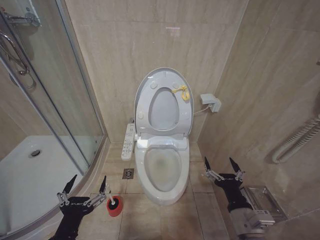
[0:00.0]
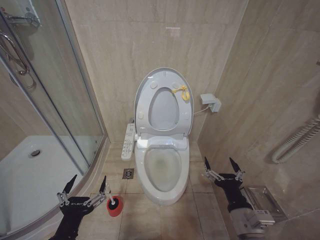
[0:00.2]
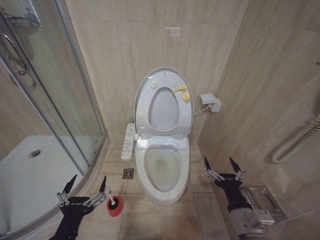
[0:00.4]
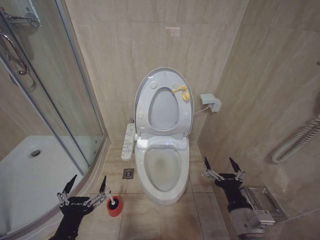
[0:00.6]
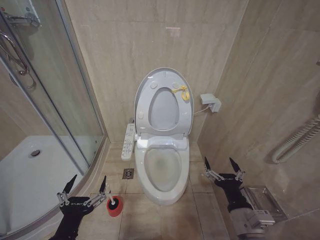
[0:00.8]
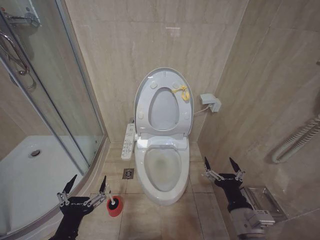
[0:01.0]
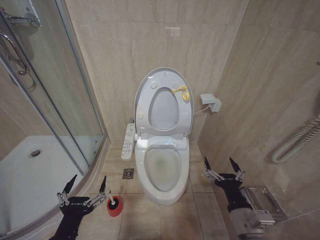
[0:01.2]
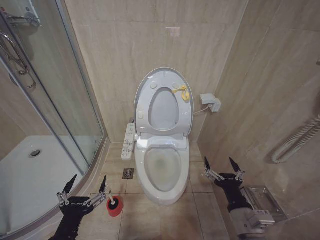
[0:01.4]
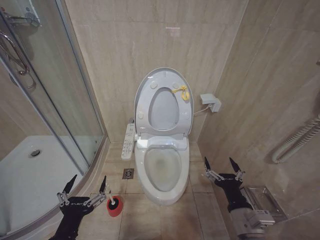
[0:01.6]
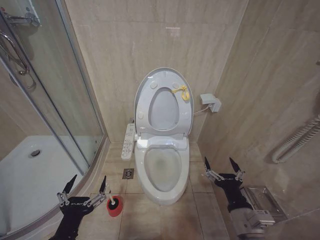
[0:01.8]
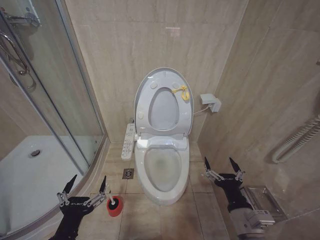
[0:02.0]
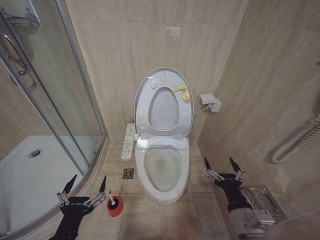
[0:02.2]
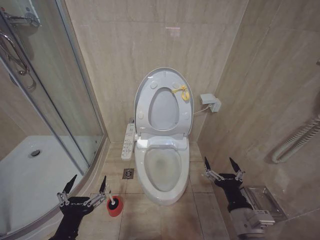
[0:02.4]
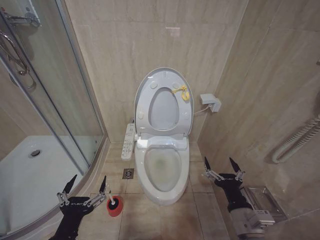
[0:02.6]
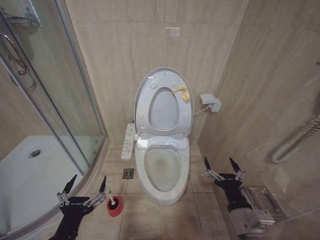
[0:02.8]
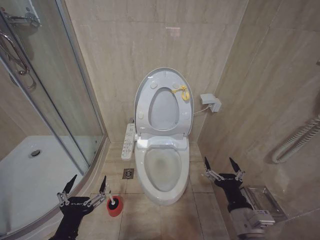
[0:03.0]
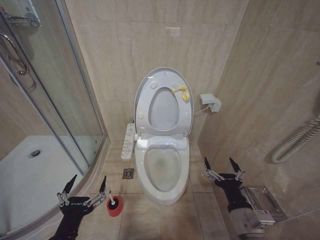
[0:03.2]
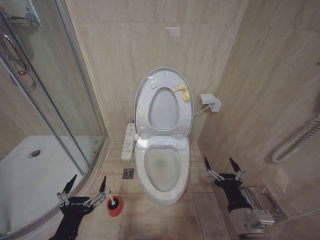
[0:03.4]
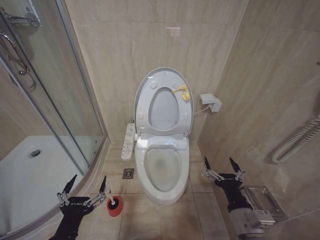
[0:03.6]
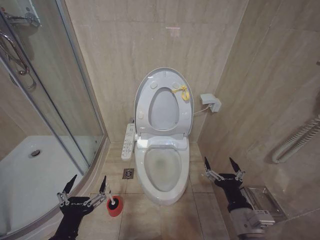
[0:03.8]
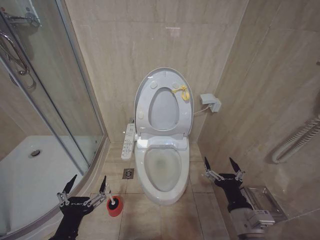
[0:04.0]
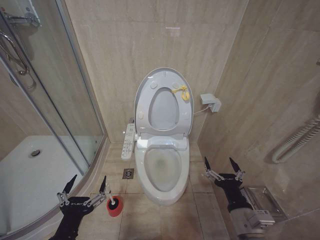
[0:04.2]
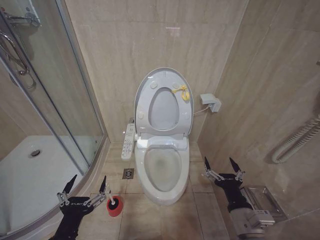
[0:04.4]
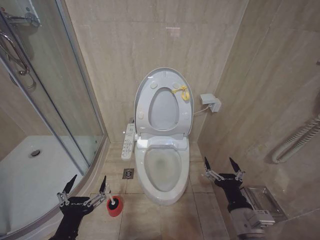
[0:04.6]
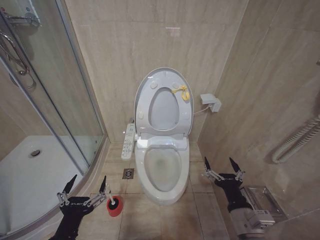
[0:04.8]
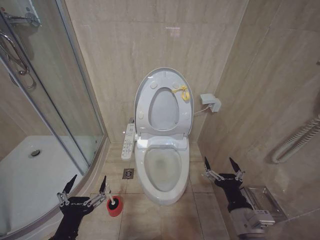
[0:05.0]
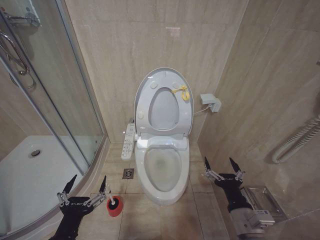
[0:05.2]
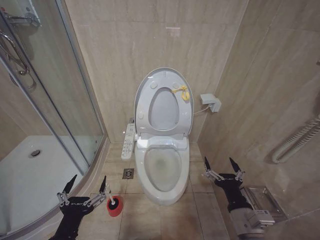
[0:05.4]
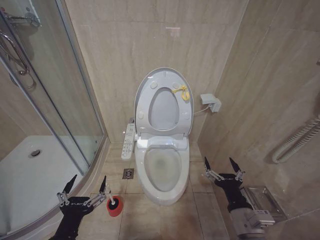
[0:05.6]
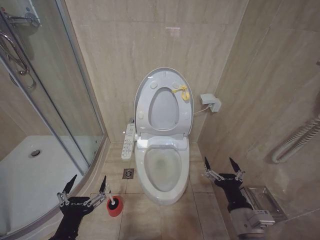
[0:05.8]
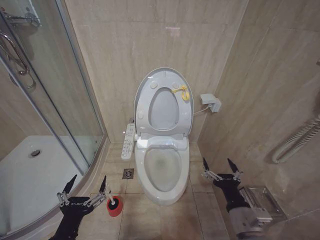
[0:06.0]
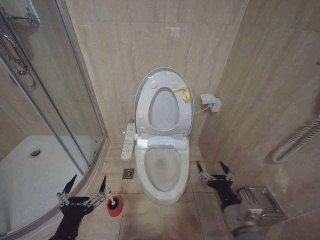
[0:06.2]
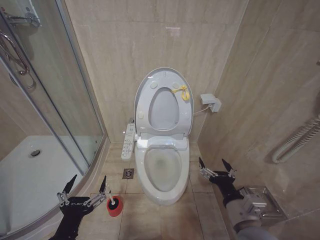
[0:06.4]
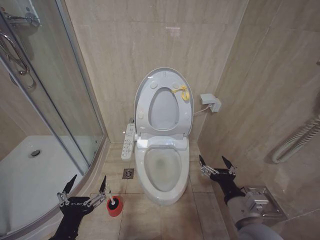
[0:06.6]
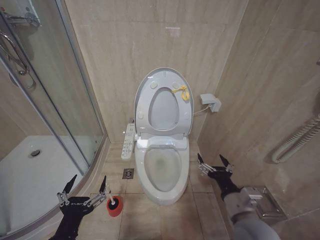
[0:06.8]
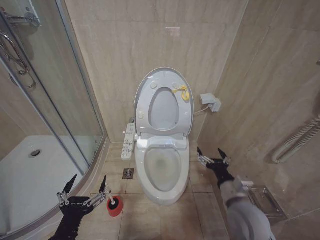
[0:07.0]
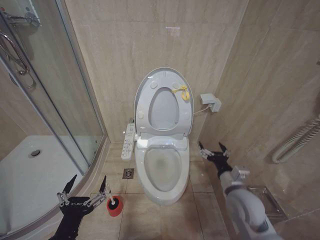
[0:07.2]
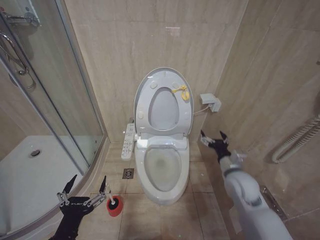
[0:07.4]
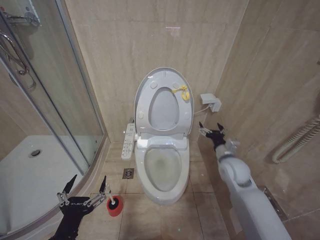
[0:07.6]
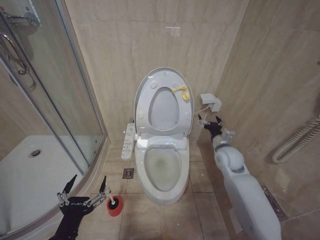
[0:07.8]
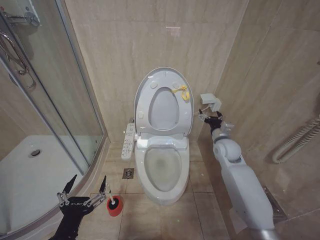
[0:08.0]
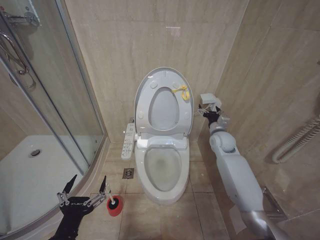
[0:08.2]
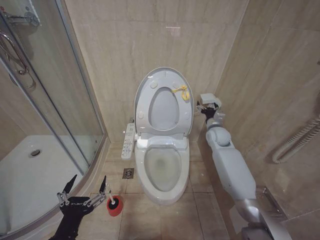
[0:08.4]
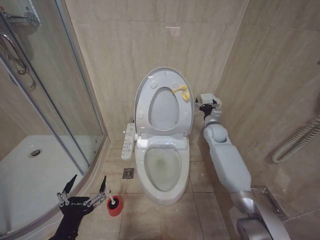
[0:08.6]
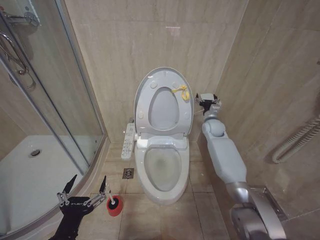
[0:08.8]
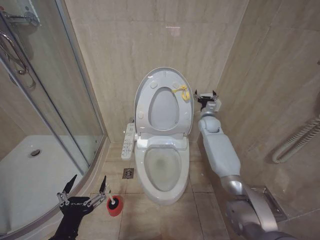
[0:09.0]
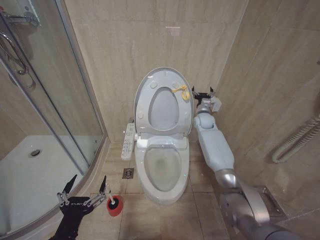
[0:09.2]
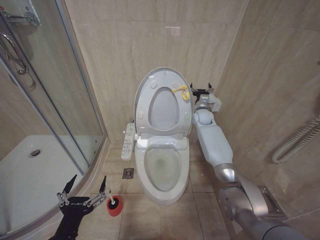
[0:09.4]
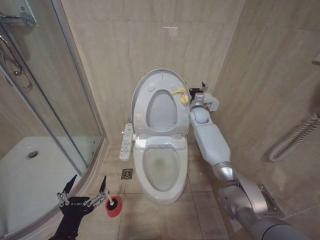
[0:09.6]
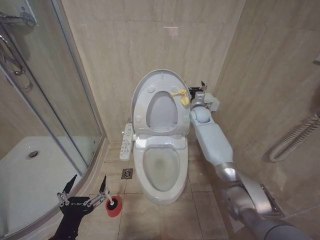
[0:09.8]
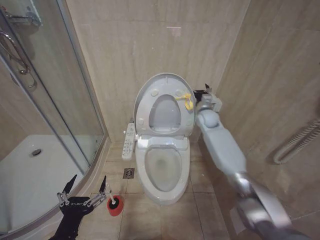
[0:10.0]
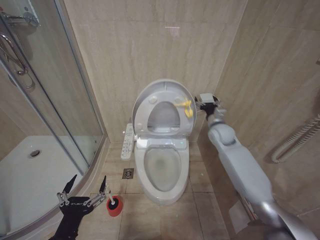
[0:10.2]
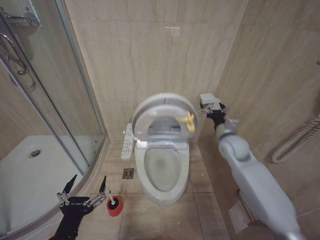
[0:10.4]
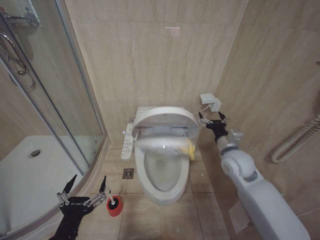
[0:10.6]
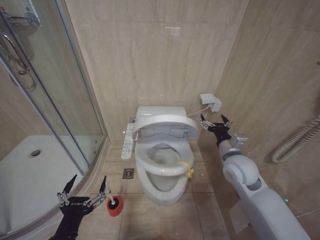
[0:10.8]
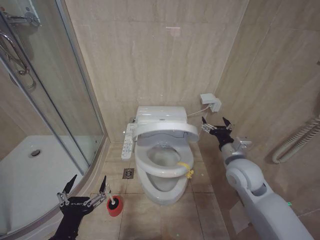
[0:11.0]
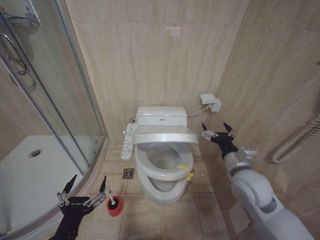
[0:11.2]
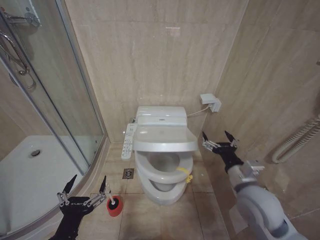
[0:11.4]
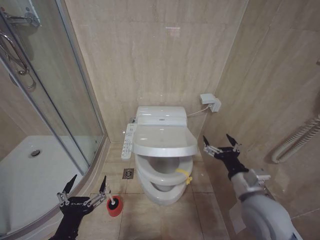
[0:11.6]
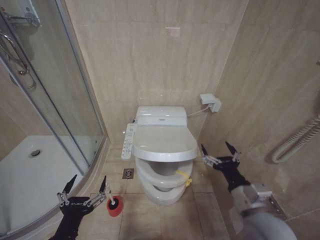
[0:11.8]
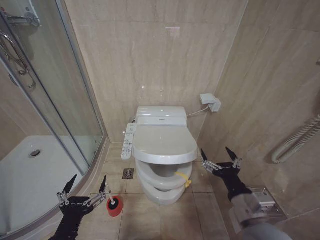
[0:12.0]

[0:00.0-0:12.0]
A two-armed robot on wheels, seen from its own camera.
Task of the whole recording: Open the toilet lid, clean the toilet bowl with a toilet brush, close the toilet lid, and flush.
0:00.0 to 0:06.0: Both grippers stay put.
0:06.0 to 0:07.6: The right gripper travels forward by approximately 20 cm.
0:07.6 to 0:09.0: The right gripper goes approximately 20 cm forward.
0:09.0 to 0:10.4: The right gripper moves backward, about 15 cm.
0:10.4 to 0:12.0: The right gripper goes approximately 30 cm backward.

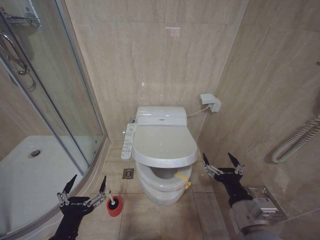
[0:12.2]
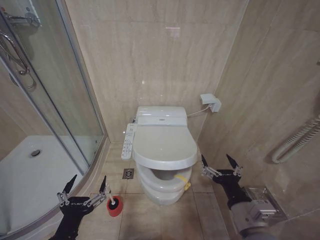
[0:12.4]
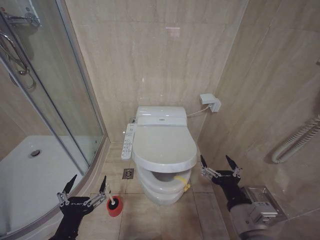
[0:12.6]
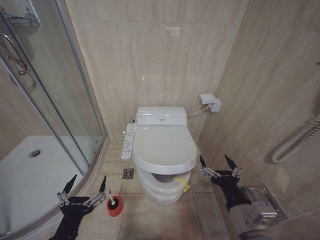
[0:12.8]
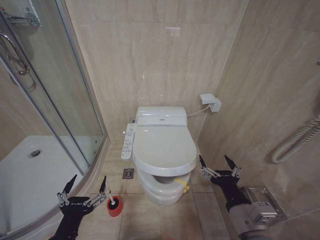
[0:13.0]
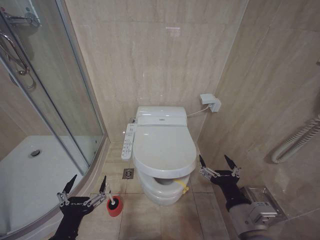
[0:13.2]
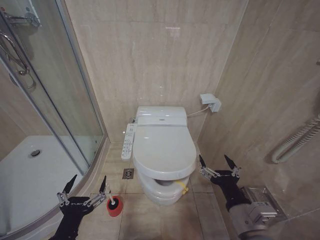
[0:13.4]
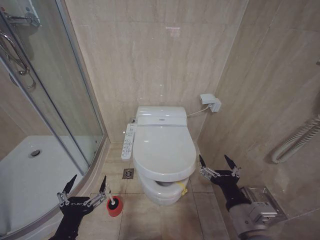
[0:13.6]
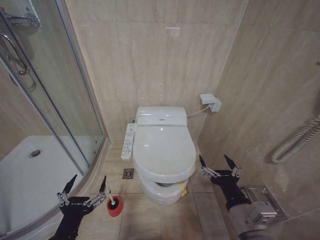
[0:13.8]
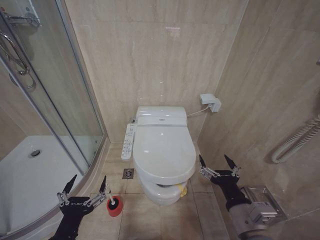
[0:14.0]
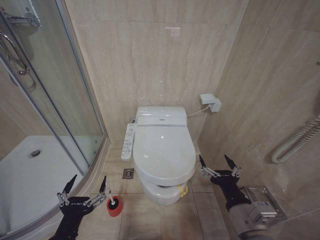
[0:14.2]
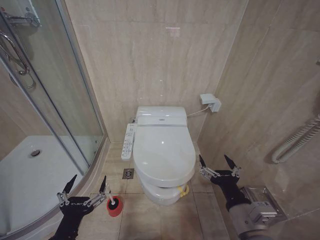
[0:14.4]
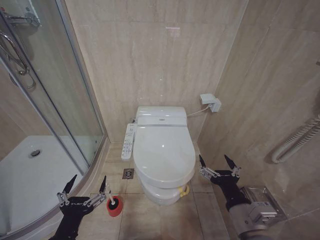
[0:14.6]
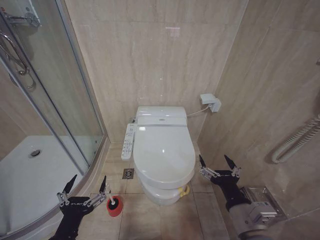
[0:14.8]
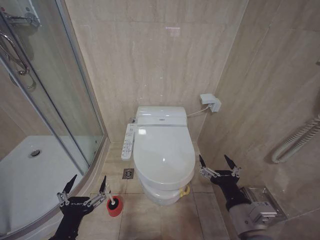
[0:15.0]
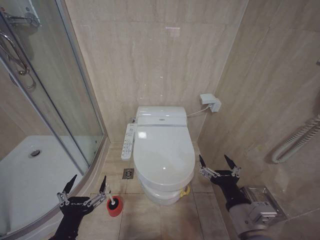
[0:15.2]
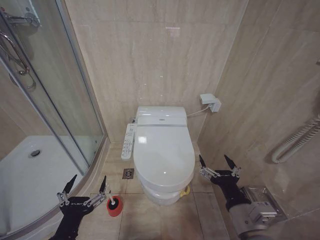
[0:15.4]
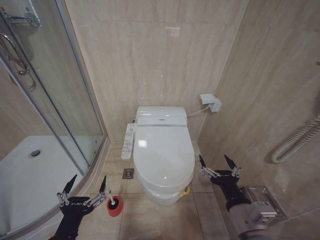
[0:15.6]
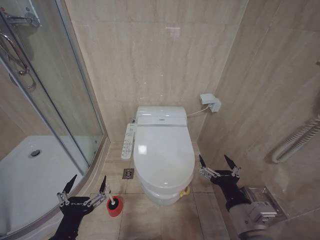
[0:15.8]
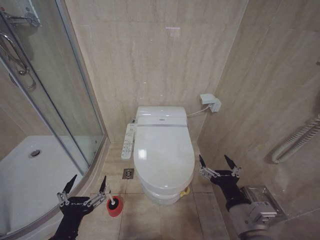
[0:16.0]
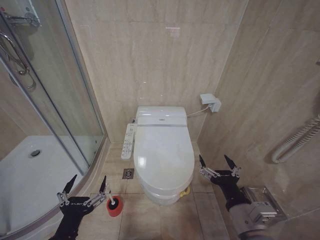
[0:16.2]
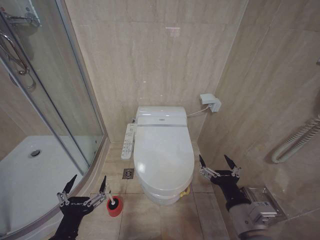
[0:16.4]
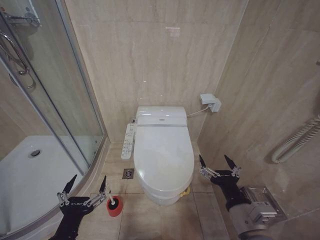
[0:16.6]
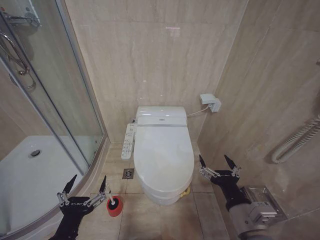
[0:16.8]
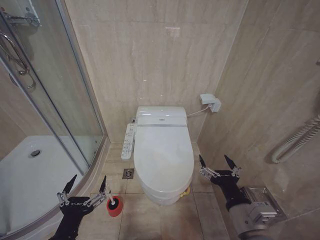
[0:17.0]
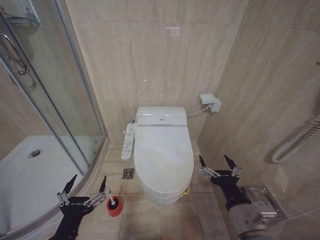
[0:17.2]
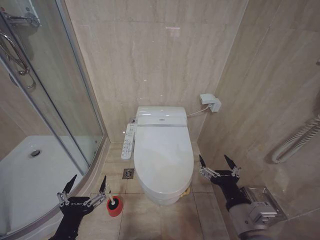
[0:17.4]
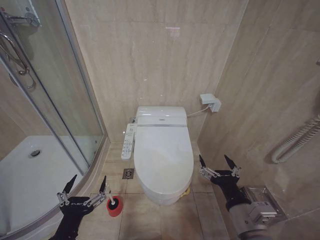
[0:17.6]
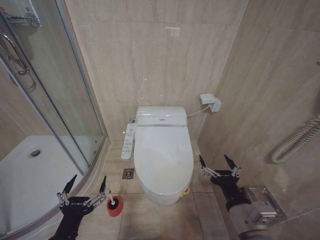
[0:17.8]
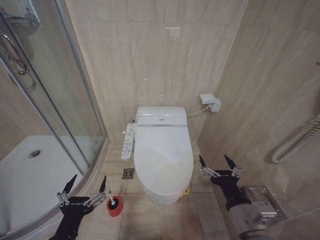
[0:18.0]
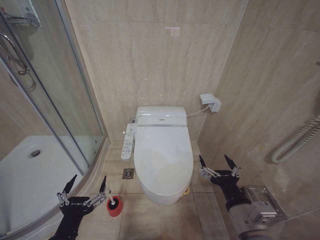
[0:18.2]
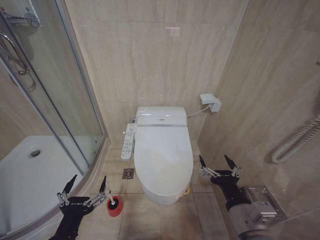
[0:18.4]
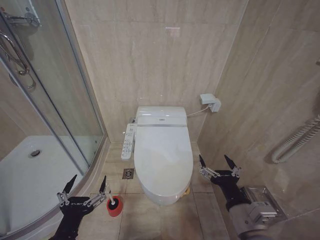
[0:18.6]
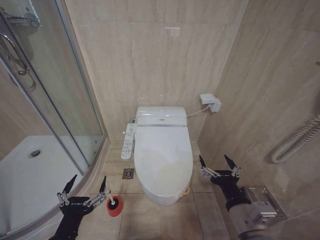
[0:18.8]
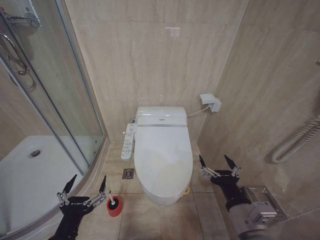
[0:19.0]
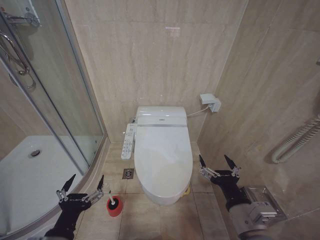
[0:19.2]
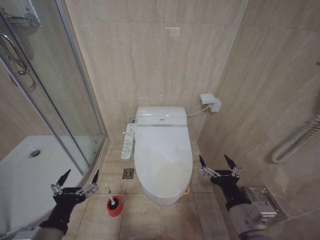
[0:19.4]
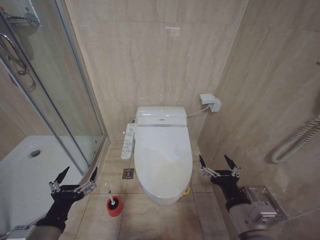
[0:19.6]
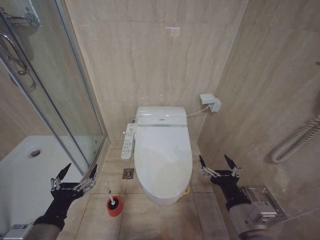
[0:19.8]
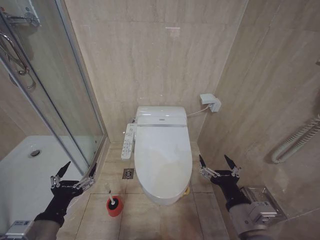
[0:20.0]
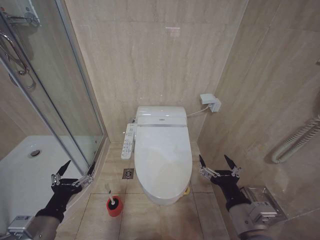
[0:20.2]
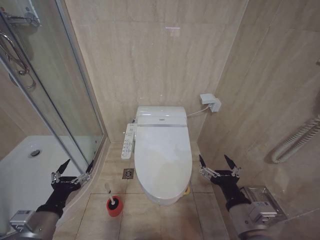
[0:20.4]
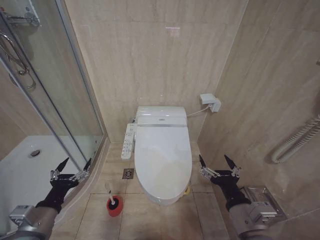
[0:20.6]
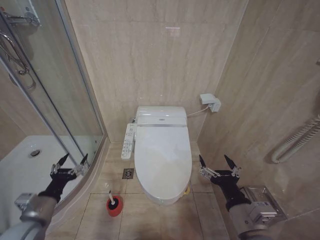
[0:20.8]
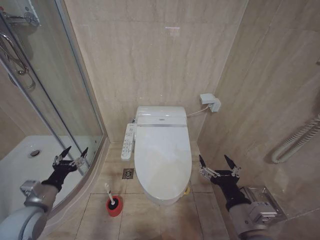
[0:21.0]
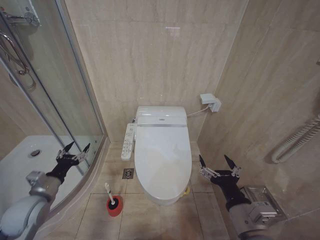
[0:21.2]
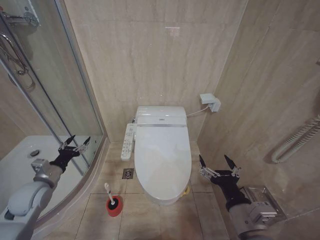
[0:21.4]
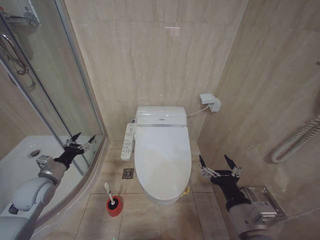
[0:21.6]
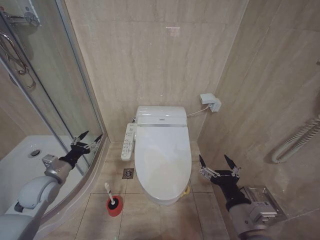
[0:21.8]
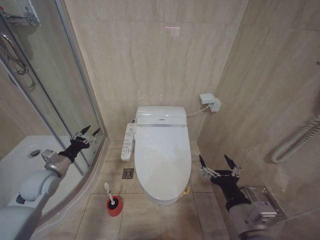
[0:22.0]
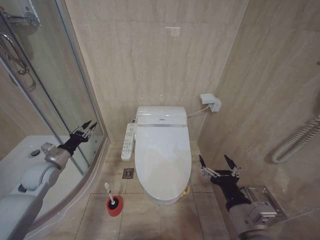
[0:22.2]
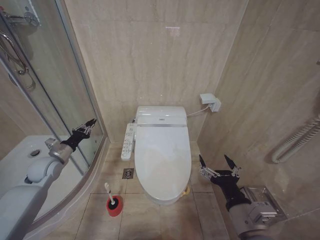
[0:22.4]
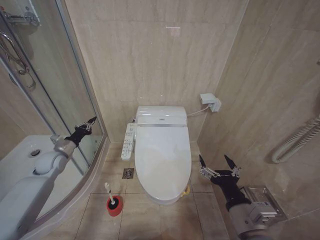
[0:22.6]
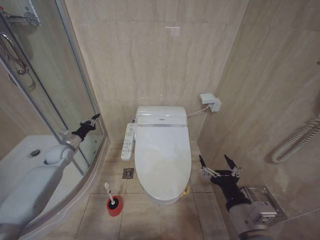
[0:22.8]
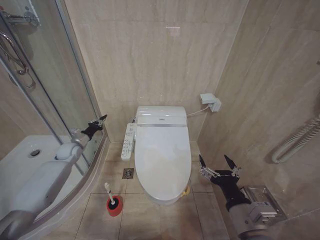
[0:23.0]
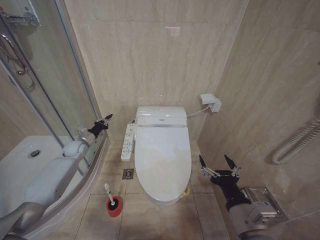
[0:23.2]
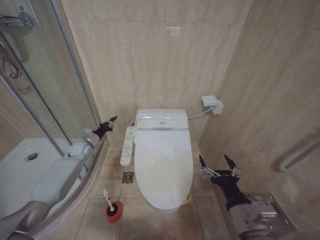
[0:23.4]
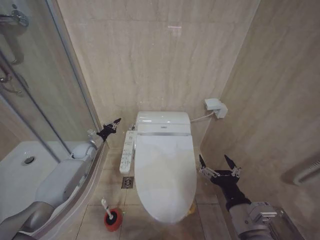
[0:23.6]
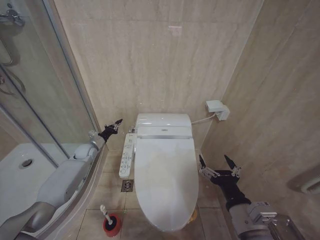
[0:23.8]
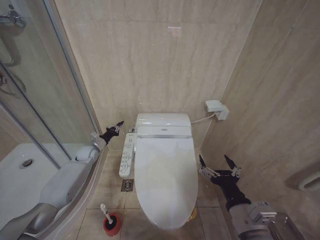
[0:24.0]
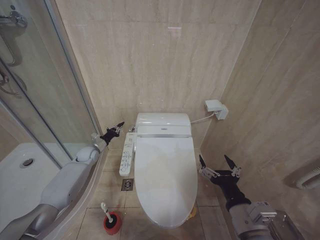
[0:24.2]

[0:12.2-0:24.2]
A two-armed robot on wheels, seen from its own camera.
Task of the whole recording: Open the toilet lid, clean the toilet bowl with a toilet brush, close the toilet lid, and flush.
0:12.2 to 0:13.8: There are only small adjustments of the grippers.
0:13.8 to 0:18.2: The two grippers keep their place.
0:18.2 to 0:19.8: The left gripper ends up roughly 5 cm from where it was.
0:19.8 to 0:21.2: The left gripper goes about 20 cm forward and to the left.
0:21.2 to 0:22.6: The left gripper shifts about 15 cm forward, and closes up.
0:22.6 to 0:24.2: The left gripper is displaced forward, to the right and downward by about 15 cm.
